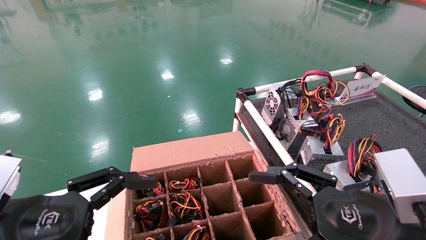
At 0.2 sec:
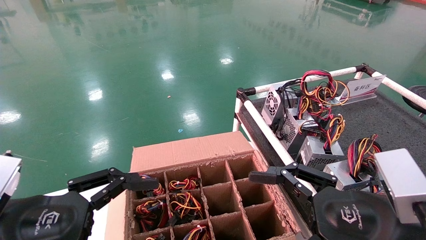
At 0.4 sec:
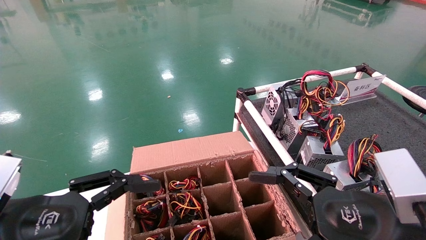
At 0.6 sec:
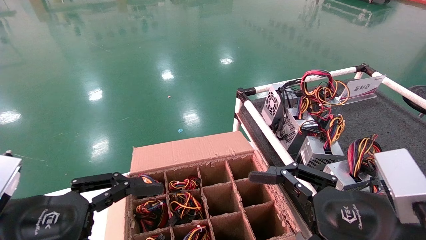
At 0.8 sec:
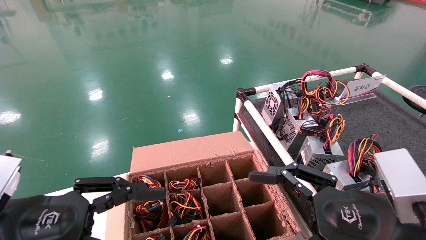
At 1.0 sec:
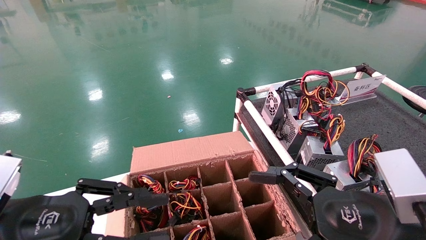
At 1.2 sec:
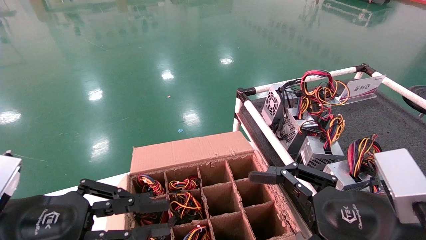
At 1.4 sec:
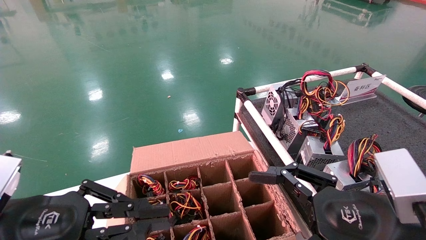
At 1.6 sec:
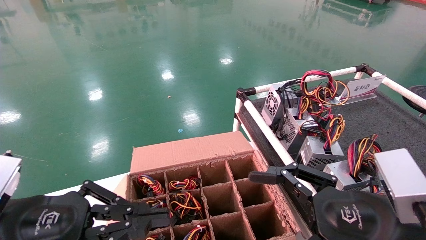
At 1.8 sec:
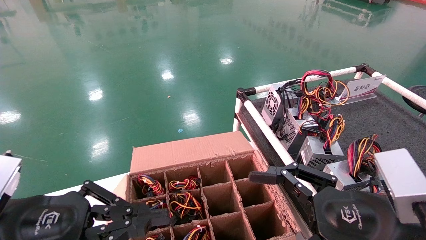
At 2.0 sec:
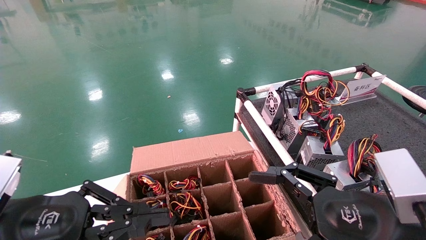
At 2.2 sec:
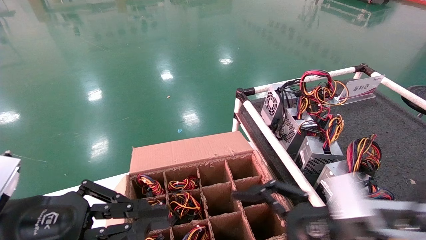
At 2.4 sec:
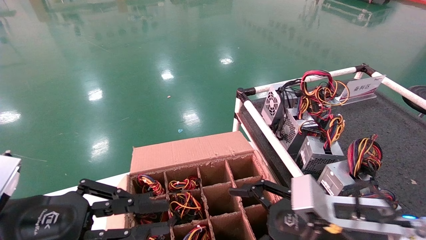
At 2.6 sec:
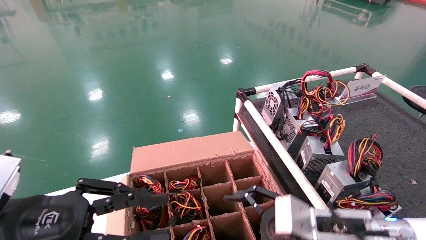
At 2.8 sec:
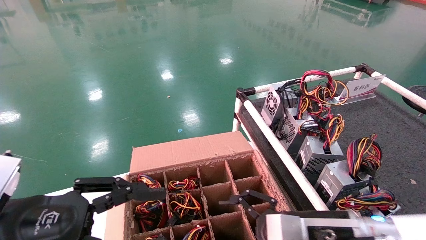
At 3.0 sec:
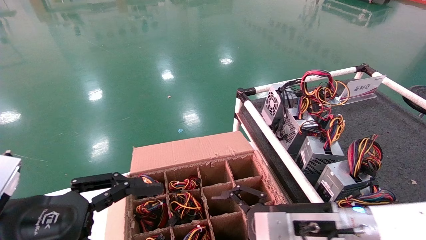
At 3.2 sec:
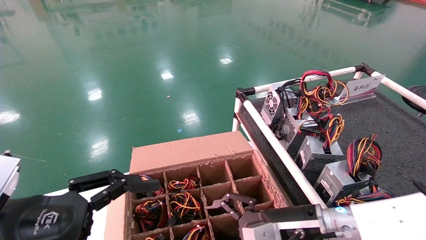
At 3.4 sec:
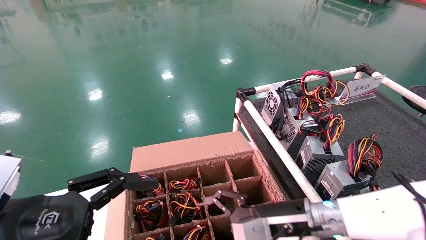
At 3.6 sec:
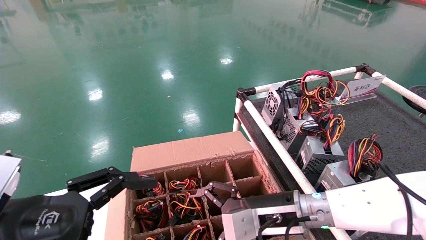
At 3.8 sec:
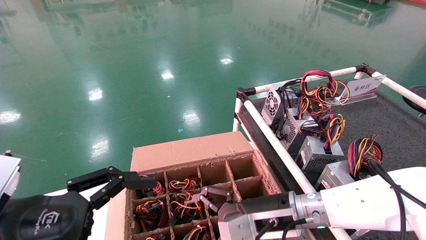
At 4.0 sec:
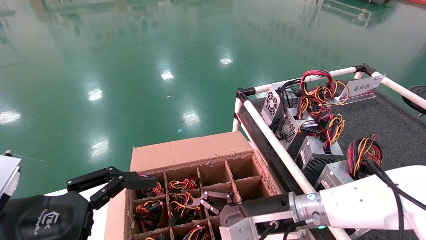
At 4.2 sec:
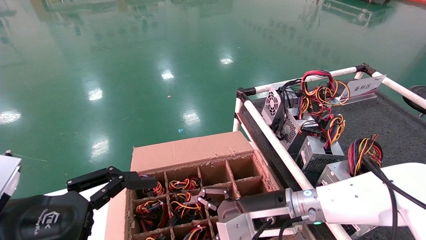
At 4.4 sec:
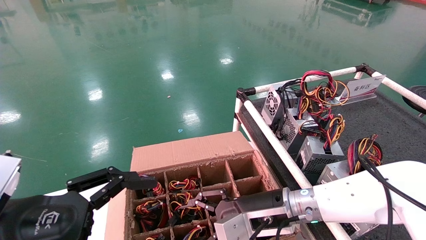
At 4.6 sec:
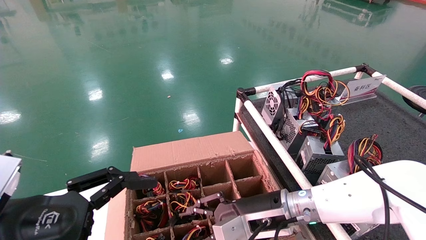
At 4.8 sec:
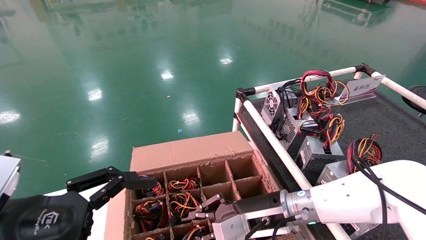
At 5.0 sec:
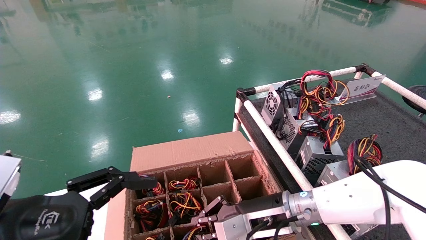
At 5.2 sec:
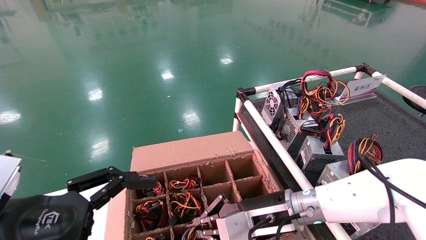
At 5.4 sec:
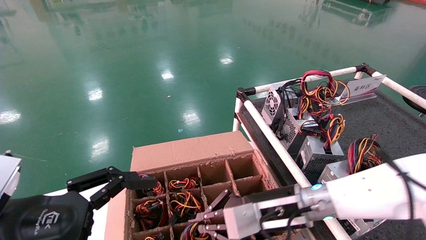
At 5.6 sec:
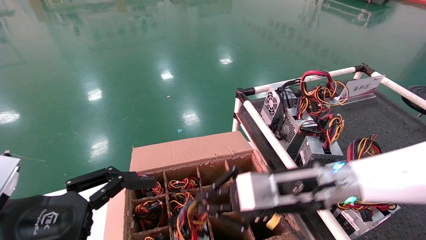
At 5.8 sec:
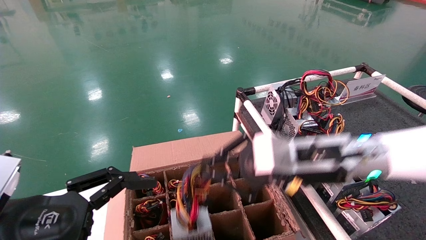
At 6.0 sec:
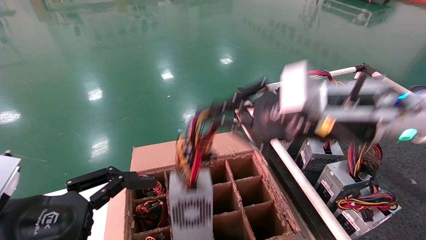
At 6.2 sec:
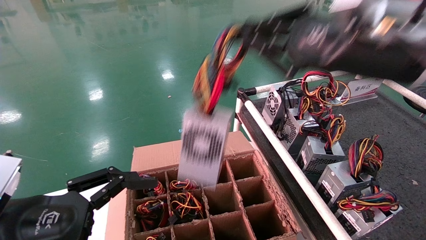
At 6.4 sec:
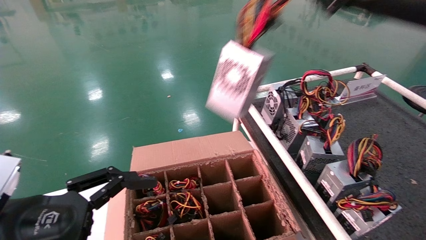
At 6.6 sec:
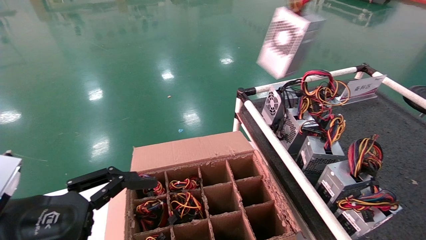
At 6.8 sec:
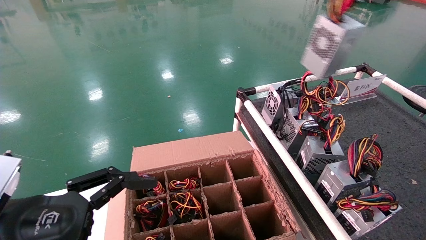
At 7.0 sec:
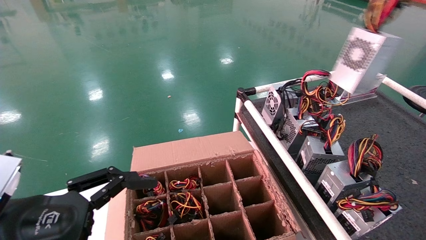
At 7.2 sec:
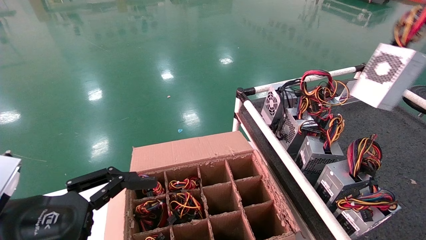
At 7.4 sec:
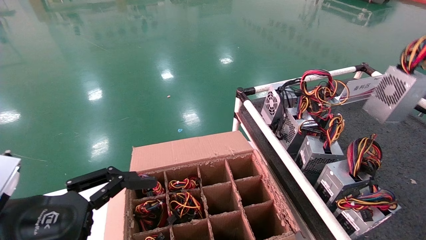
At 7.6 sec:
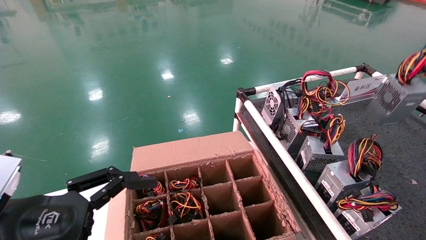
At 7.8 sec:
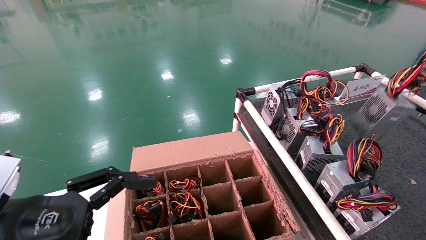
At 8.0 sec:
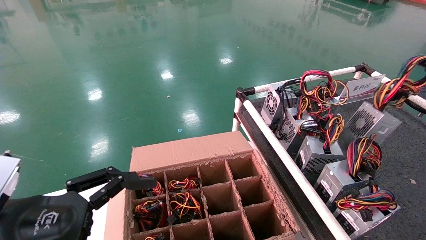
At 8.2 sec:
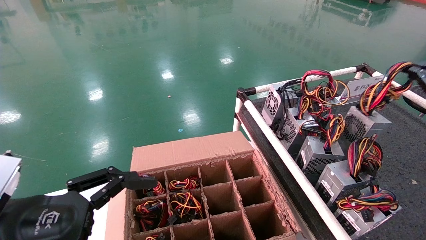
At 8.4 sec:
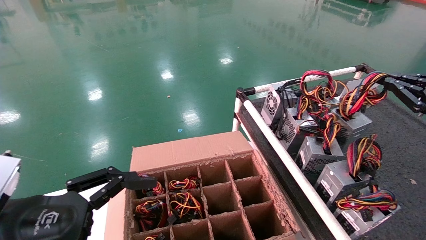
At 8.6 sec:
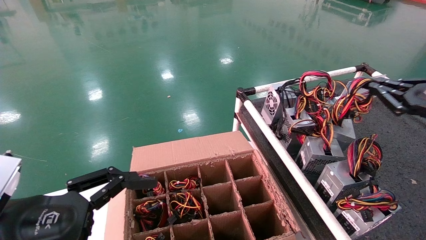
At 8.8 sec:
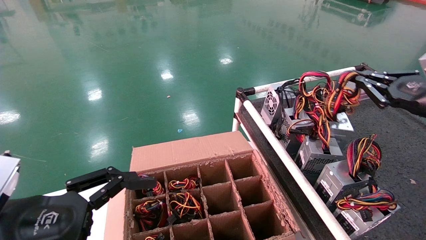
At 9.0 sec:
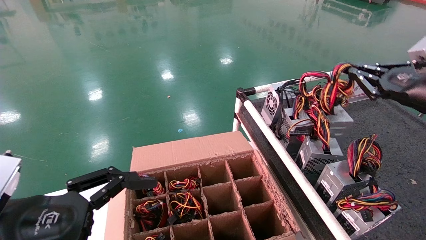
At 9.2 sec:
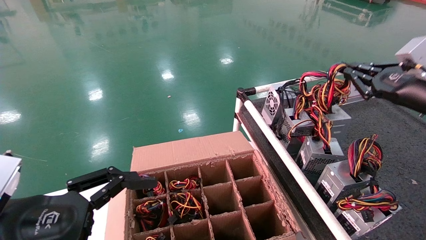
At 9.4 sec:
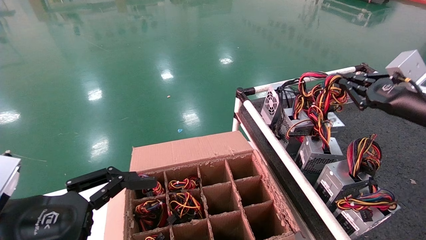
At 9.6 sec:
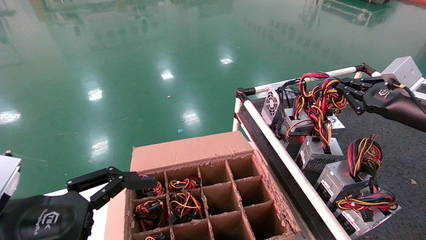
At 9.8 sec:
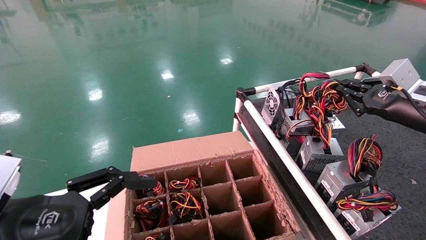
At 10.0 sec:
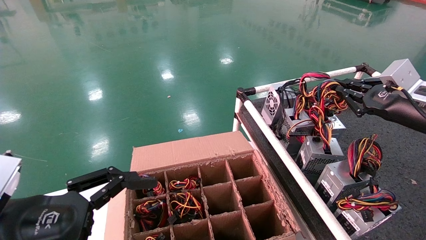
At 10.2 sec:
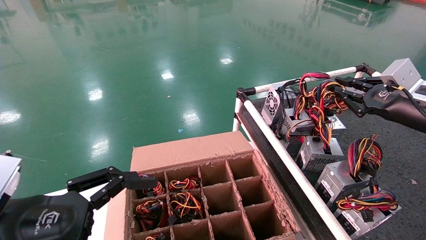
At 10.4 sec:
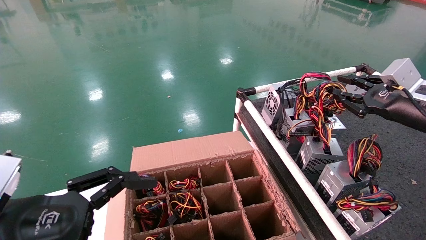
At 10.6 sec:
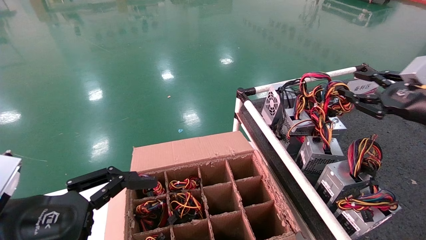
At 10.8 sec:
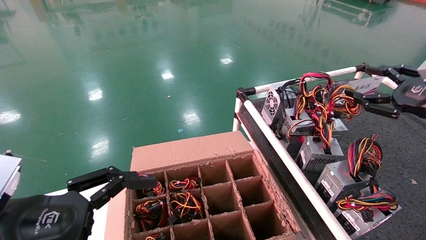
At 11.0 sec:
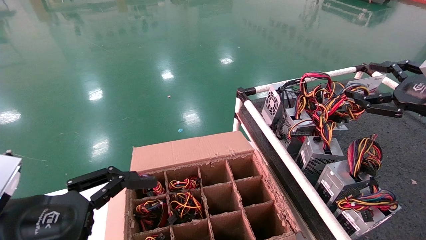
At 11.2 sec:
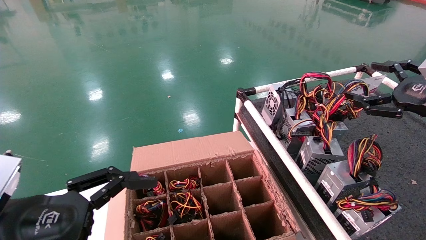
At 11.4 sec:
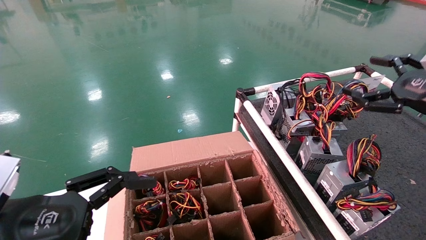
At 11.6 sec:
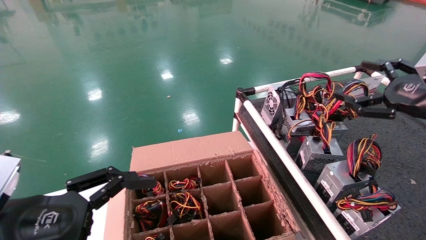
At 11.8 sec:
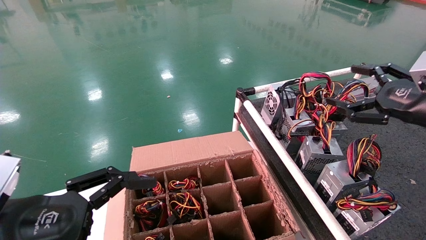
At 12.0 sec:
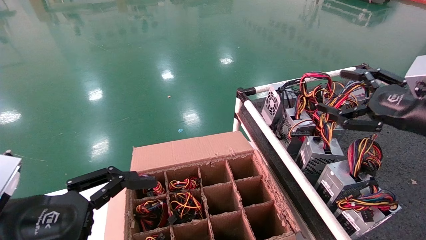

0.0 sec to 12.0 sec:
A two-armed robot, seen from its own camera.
Step, 2.6 sec to 5.2 sec: Grab and lift the power supply from the large box.
Step, 5.4 sec to 10.4 sec: Place the power supply on the operating table.
0.0 sec to 1.6 sec: The left gripper closes up.
1.6 sec to 3.0 sec: The left gripper opens its fingers. The right gripper goes approximately 15 cm forward, downward and to the left.
3.0 sec to 4.4 sec: The right gripper moves to the left, approximately 5 cm. Meanwhile the left gripper opens up.
4.4 sec to 6.0 sec: The right gripper goes roughly 20 cm upward, and closes up.
6.0 sec to 7.6 sec: The right gripper goes about 35 cm to the right.
7.6 sec to 9.0 sec: The right gripper shifts approximately 10 cm to the left.
9.0 sec to 10.4 sec: There are only small adjustments of the grippers.
10.4 sec to 12.0 sec: The right gripper heads backward, covering roughly 5 cm, and opens its fingers.

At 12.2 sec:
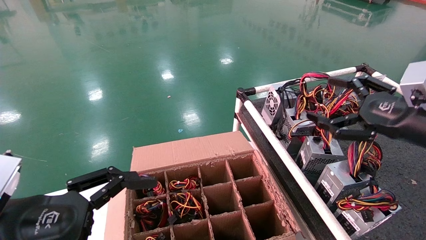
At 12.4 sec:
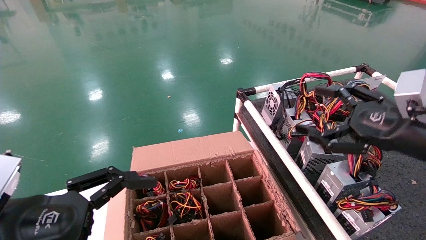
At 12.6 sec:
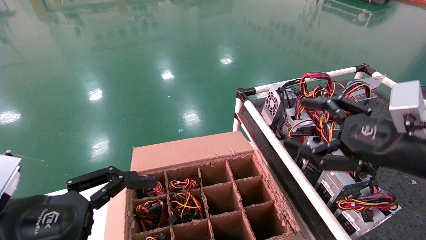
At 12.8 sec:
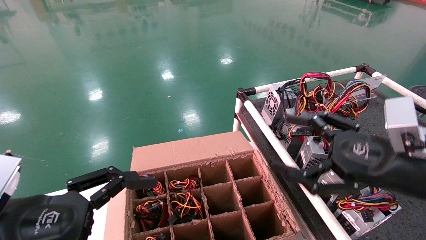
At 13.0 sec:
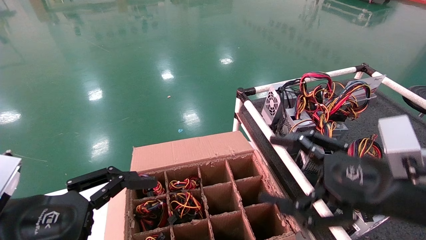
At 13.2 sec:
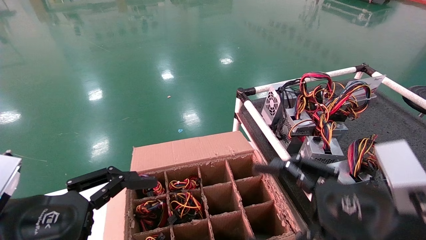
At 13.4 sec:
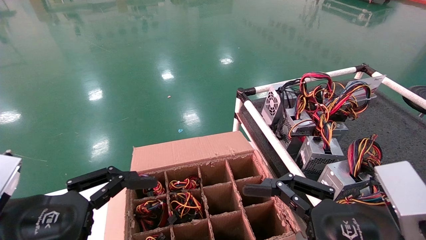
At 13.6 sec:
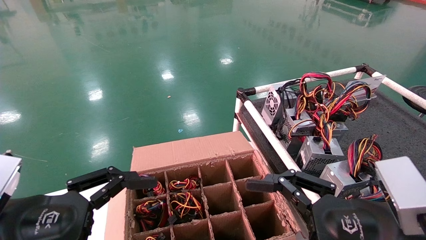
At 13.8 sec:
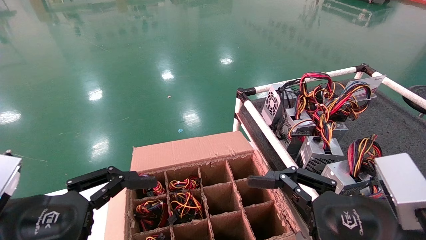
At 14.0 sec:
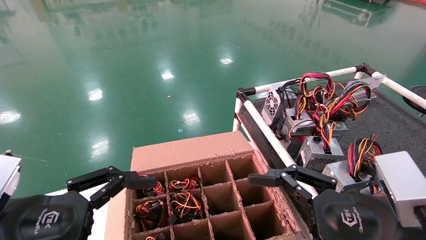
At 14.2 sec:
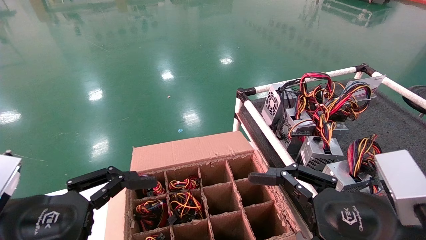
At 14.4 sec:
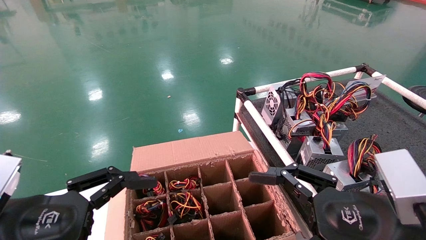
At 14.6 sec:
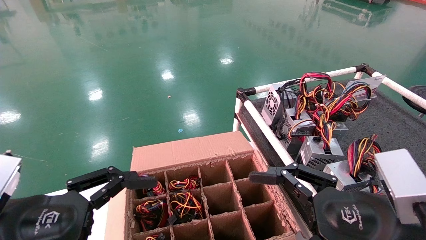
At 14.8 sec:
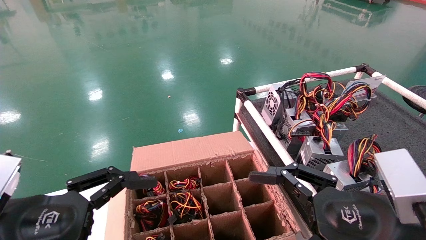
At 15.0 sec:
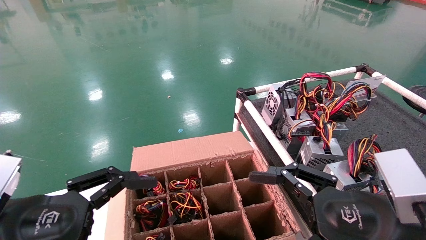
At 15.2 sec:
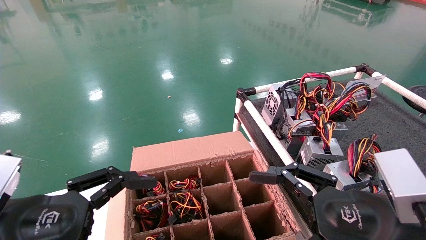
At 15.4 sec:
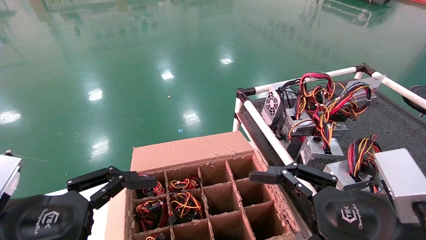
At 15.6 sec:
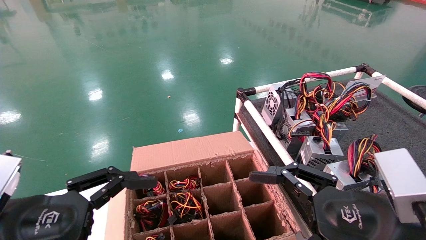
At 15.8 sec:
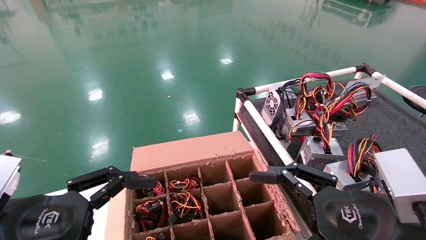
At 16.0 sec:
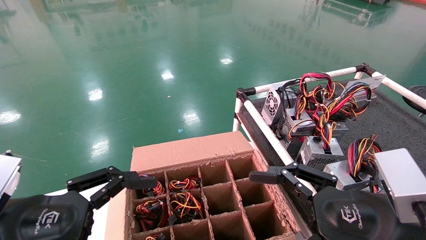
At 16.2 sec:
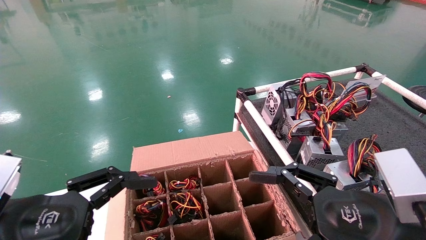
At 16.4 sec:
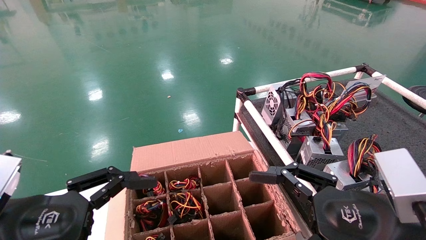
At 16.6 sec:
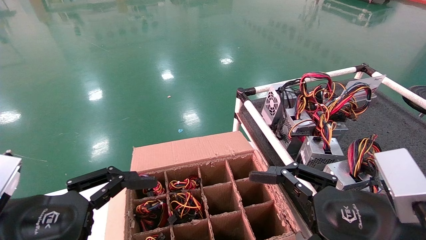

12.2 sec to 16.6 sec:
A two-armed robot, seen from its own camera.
12.2 sec to 13.6 sec: The right gripper shifts approximately 20 cm to the left, backward and downward.
13.6 sec to 16.6 sec: Neither gripper changes place.
